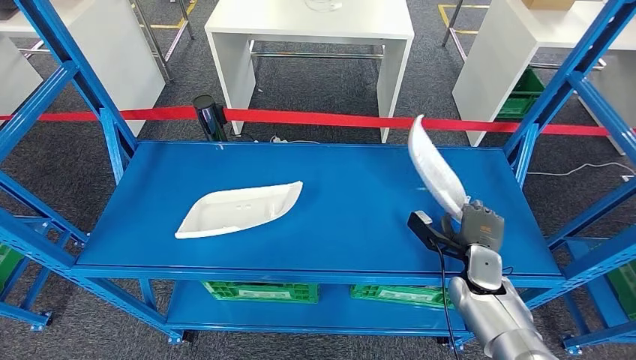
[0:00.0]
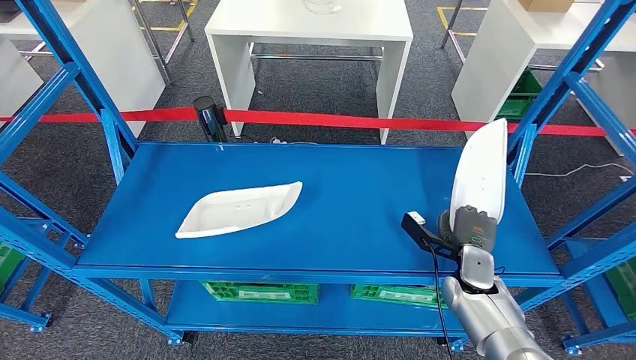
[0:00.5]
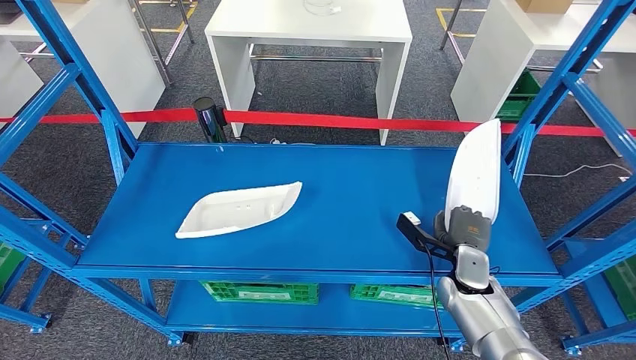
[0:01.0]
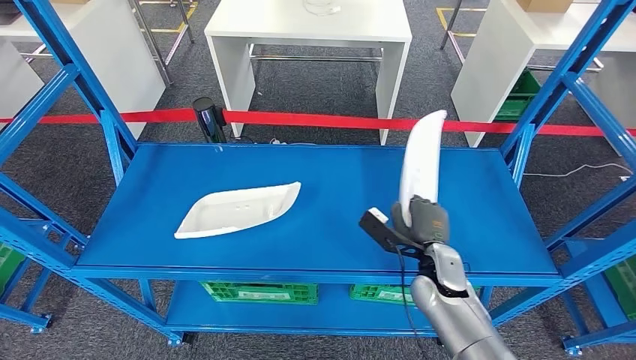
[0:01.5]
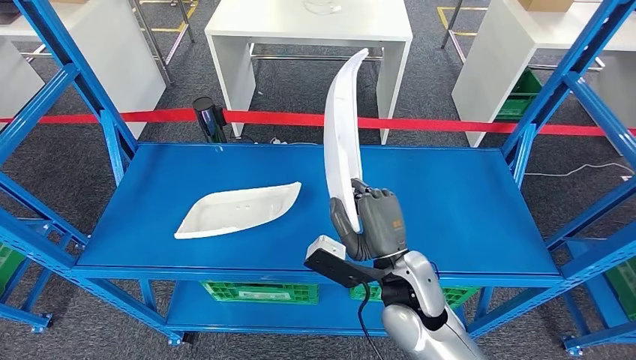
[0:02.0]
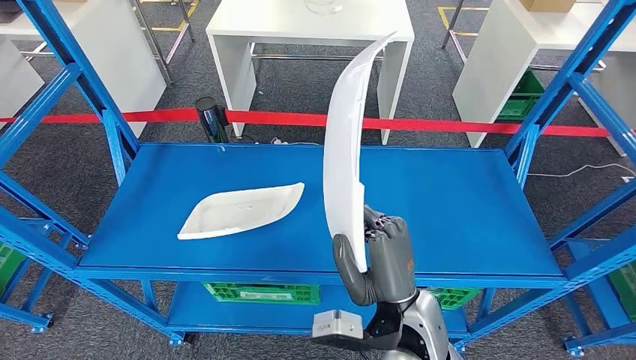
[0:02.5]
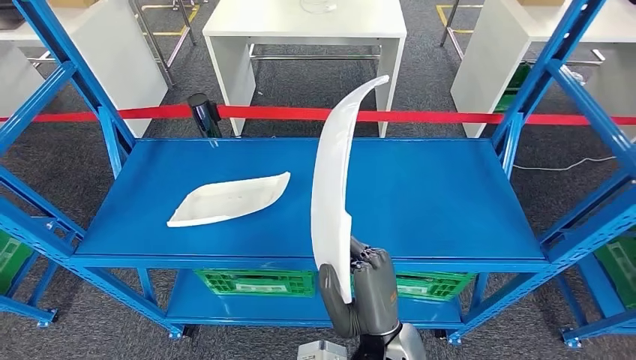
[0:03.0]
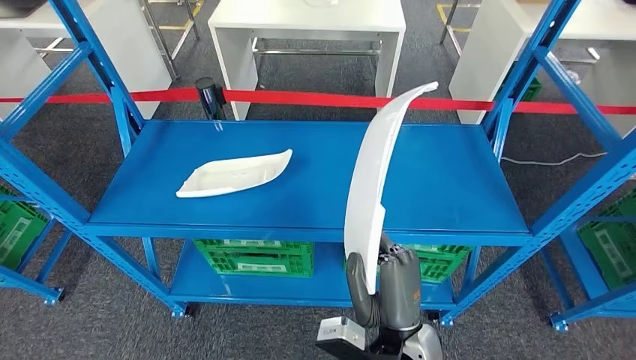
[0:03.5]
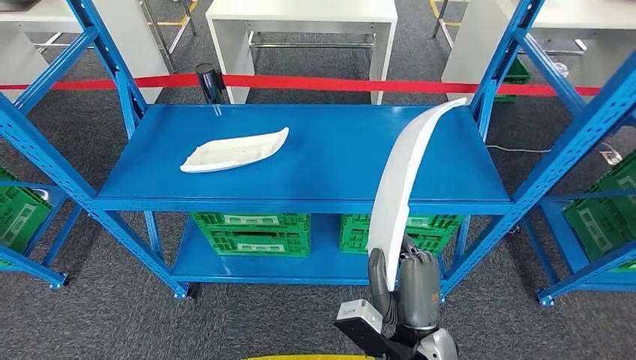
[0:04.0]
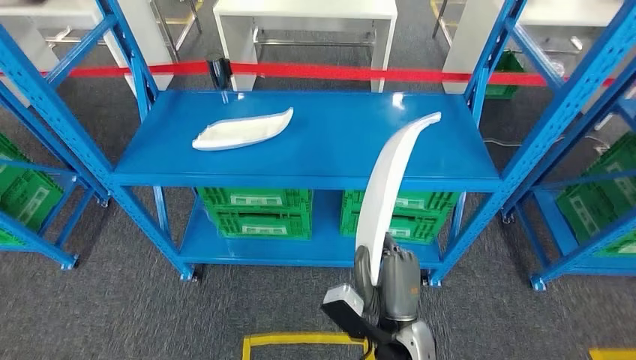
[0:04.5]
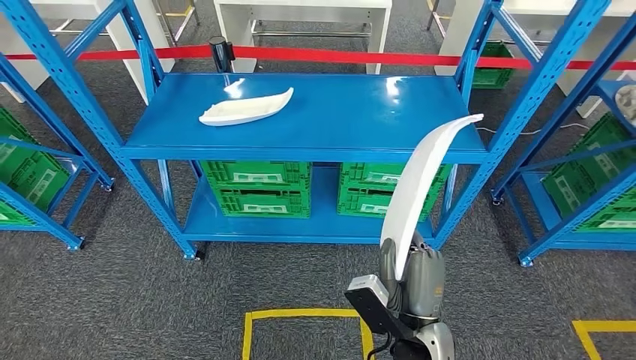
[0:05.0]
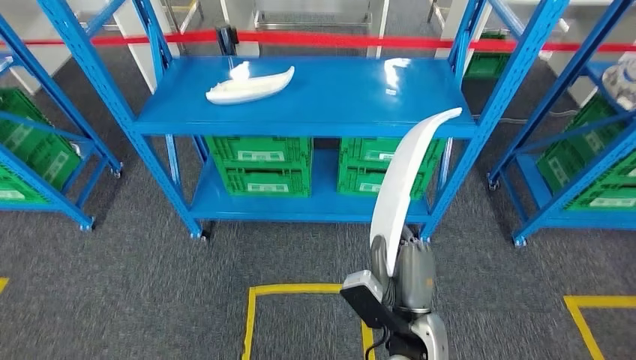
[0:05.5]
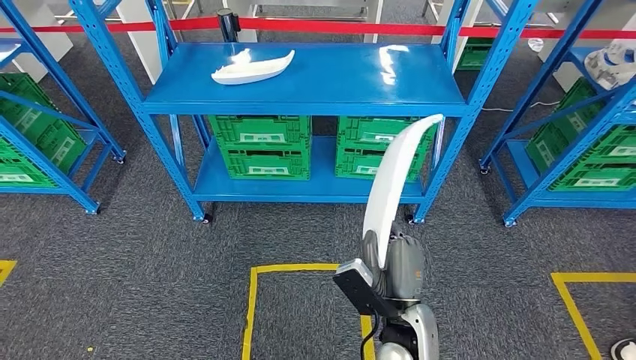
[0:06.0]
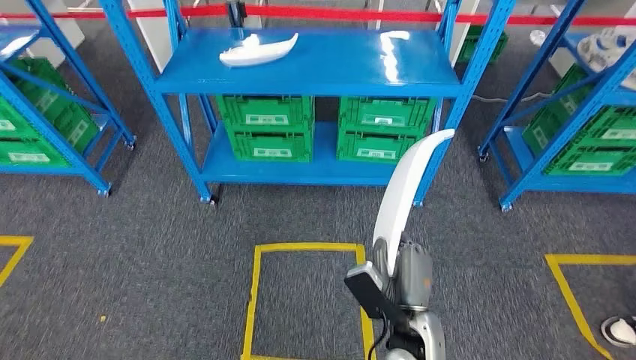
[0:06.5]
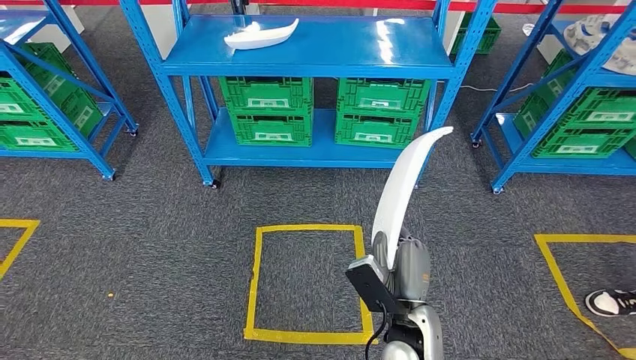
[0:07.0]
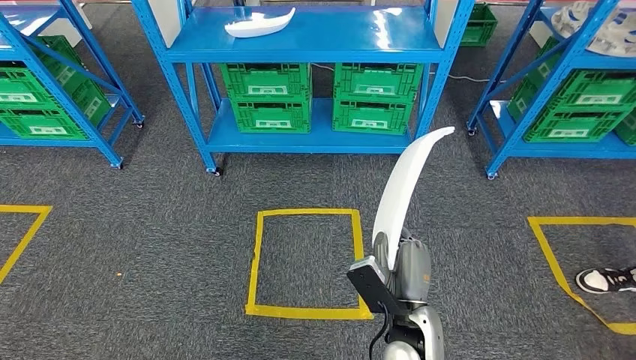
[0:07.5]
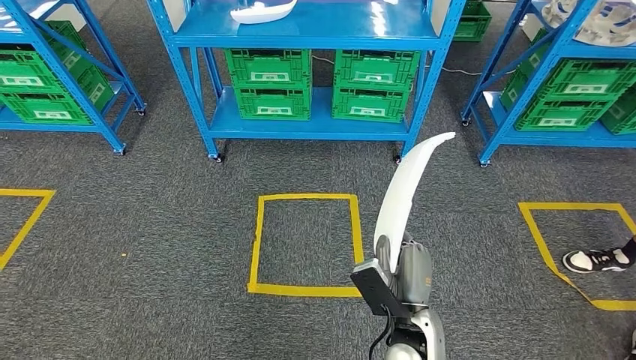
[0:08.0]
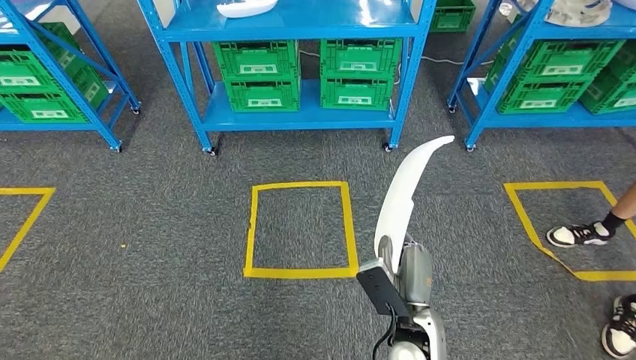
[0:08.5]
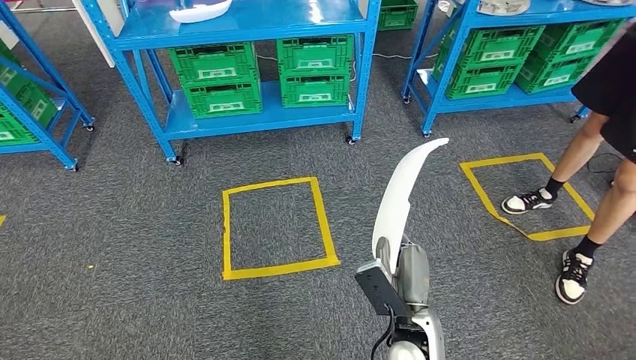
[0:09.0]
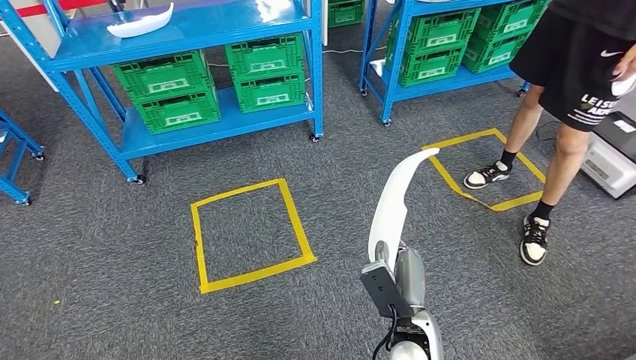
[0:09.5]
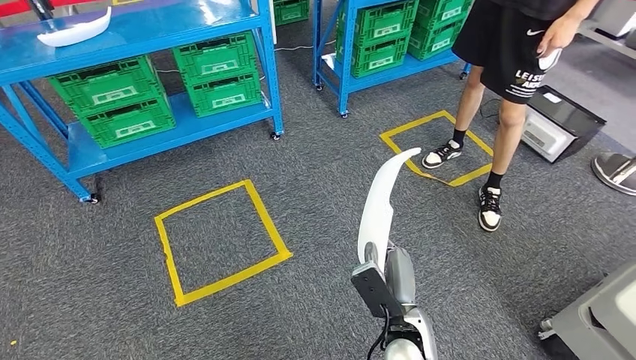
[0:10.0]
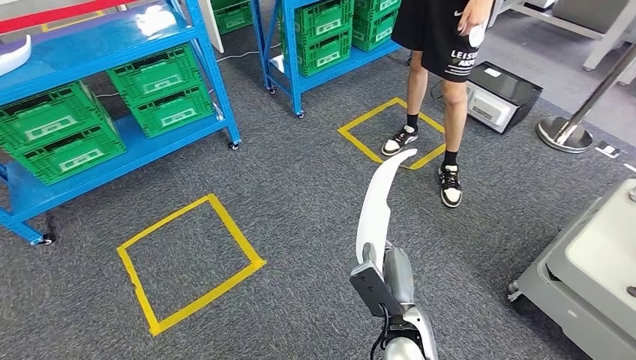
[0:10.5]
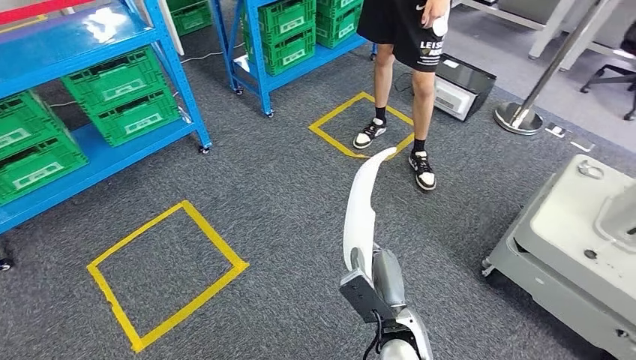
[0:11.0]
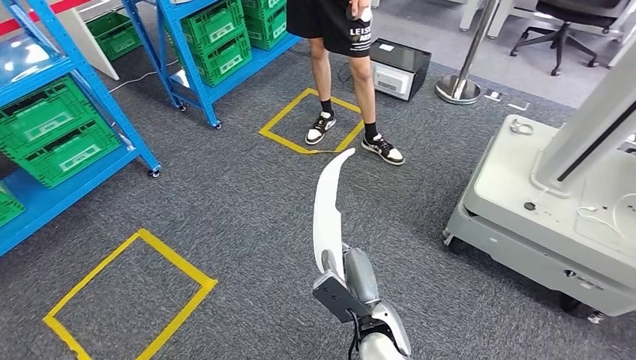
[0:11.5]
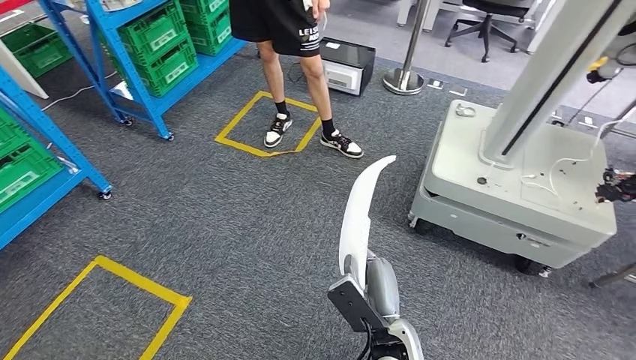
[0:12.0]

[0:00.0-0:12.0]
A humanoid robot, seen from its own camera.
Step, 0:00.0 to 0:02.5: Pick up the small component from the shelf.
0:00.0 to 0:02.0: The right hand is displaced to the left and upward by some 20 cm.

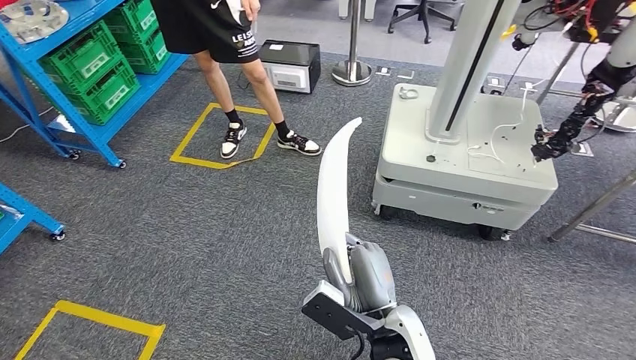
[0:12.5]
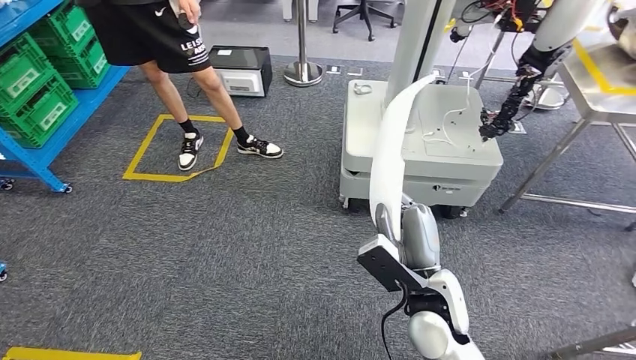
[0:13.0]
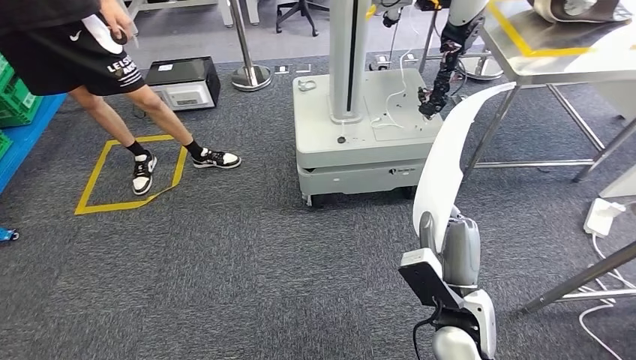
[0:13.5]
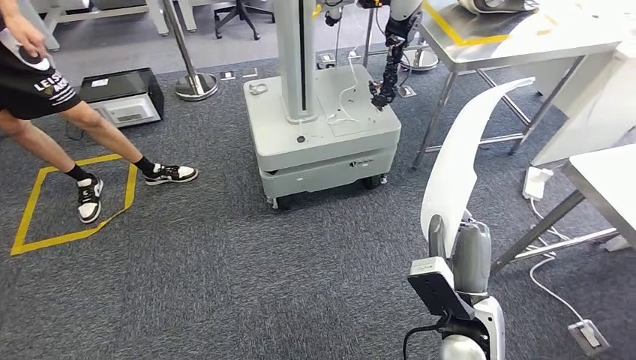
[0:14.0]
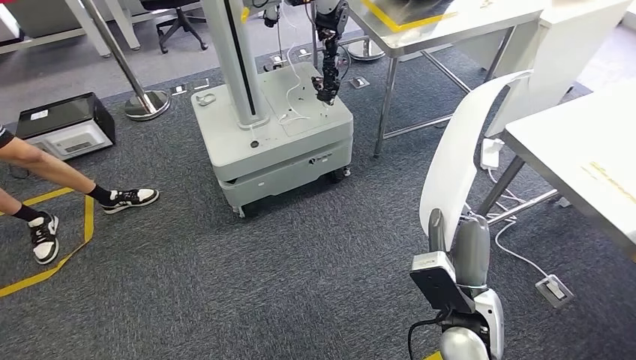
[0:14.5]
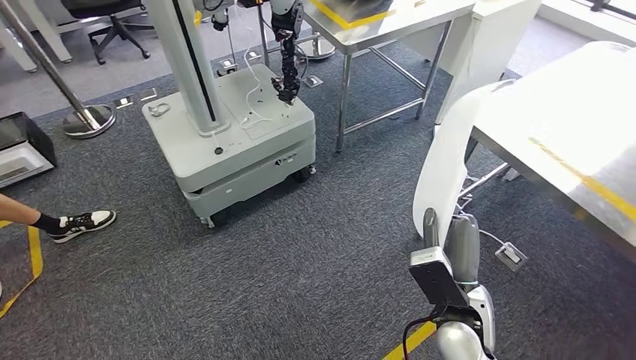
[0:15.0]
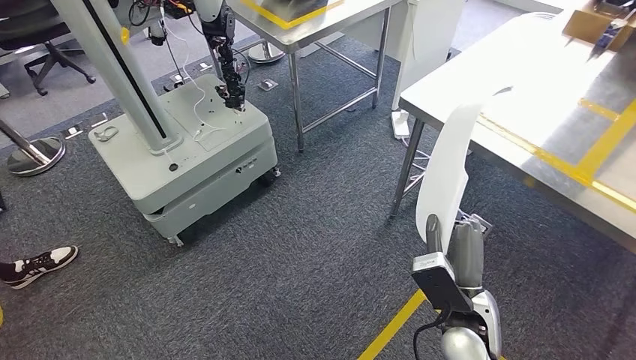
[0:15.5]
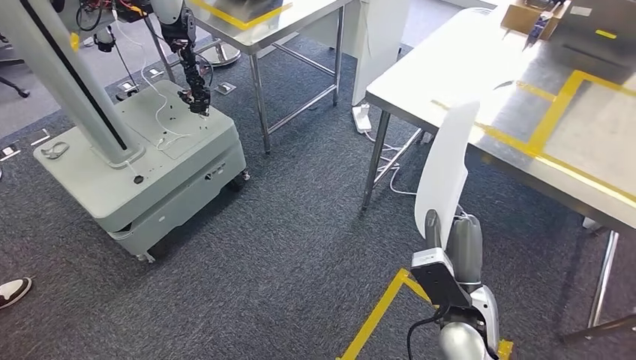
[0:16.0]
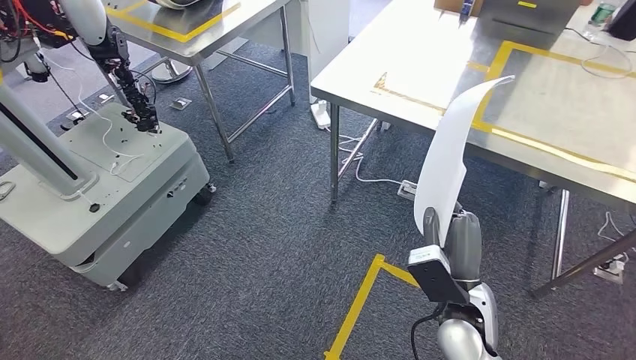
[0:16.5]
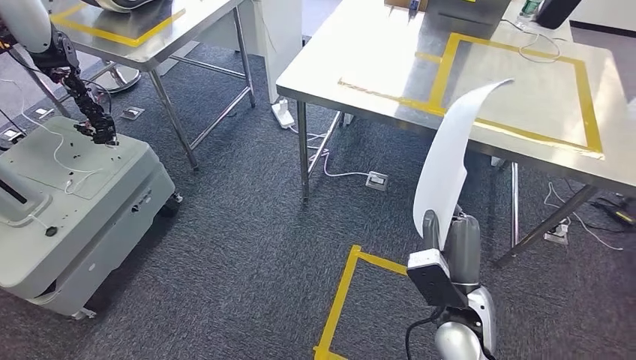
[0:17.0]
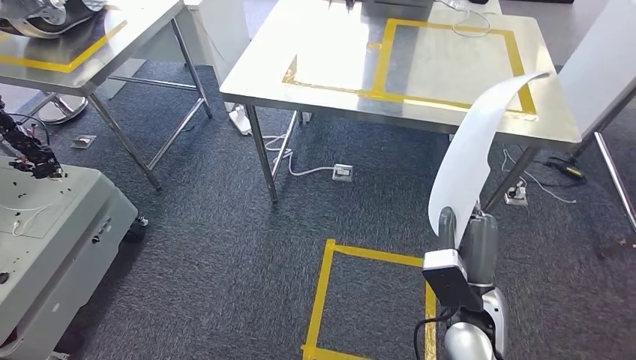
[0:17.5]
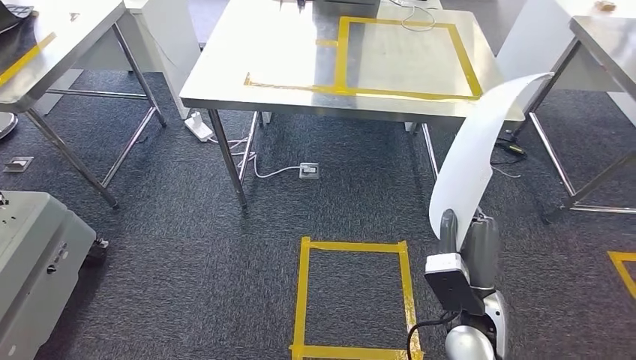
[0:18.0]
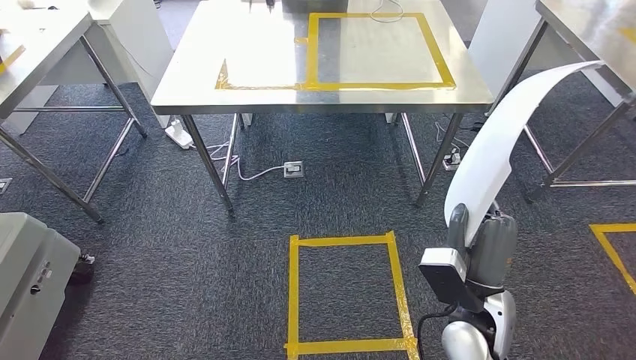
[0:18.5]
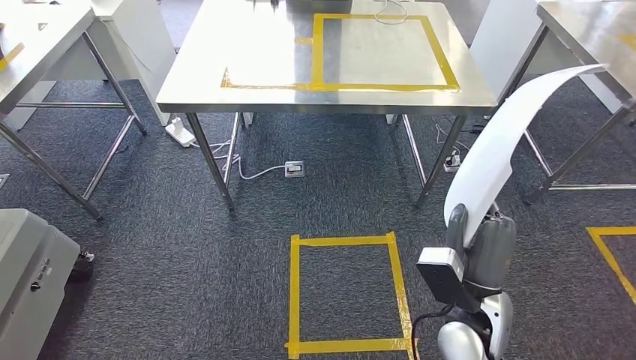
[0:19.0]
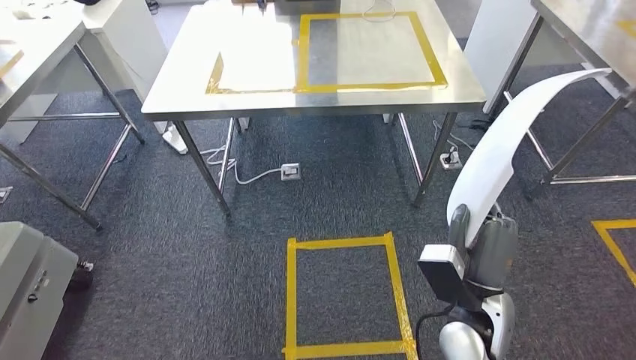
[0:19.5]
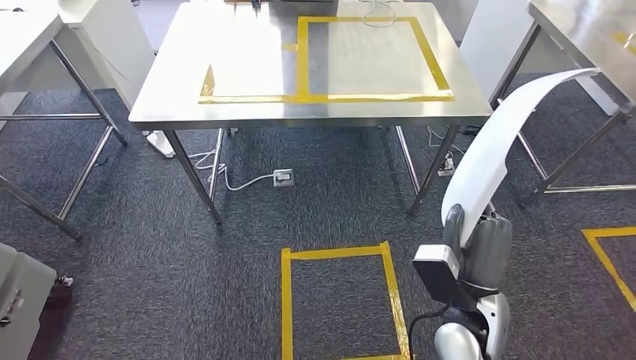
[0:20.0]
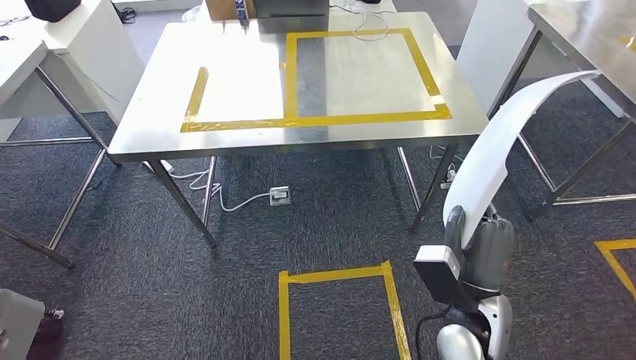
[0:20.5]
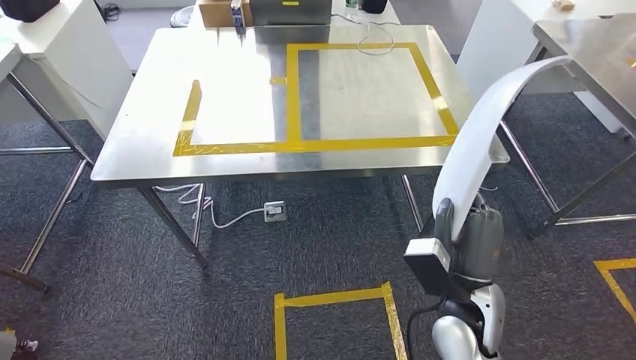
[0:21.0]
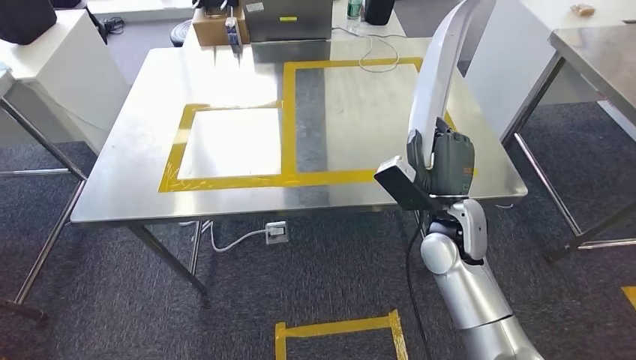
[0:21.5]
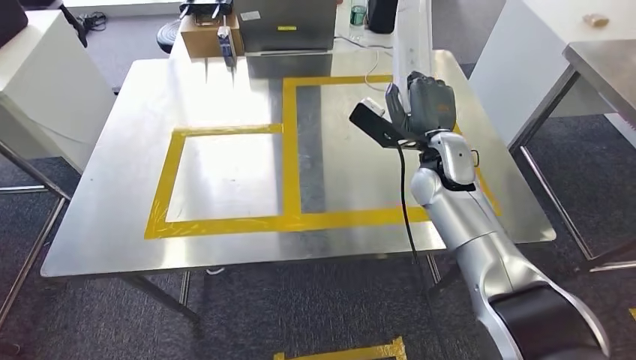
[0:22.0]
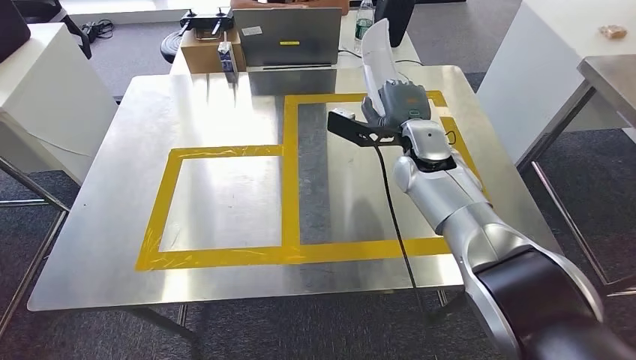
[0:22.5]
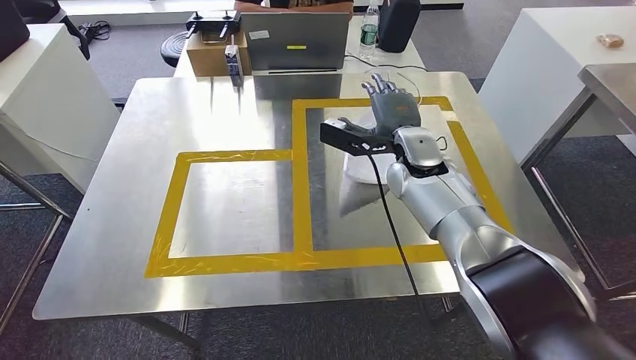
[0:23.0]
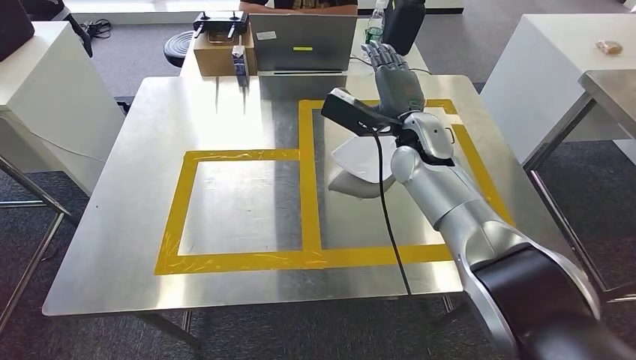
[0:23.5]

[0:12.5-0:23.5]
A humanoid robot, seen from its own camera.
Step, 0:12.5 to 0:21.5: Move the small component to the workbench.
